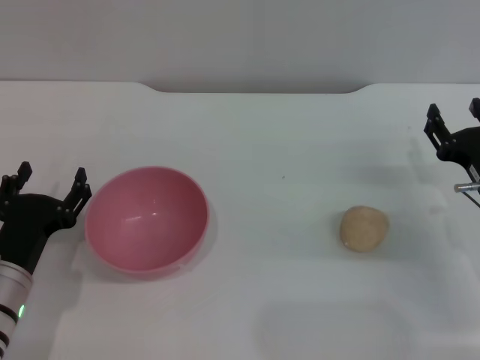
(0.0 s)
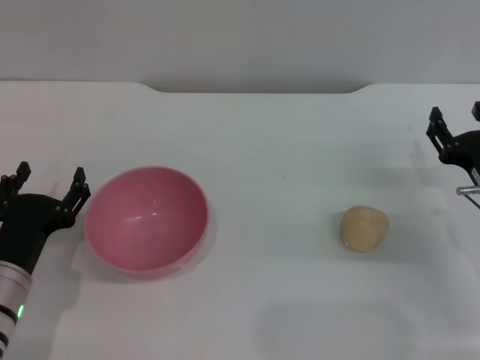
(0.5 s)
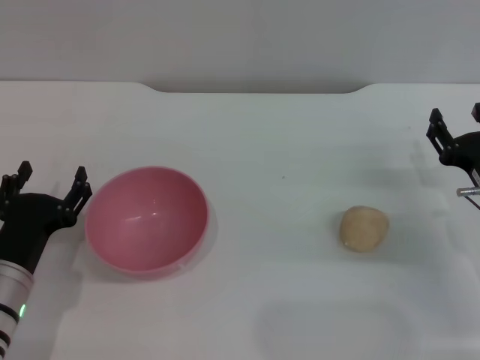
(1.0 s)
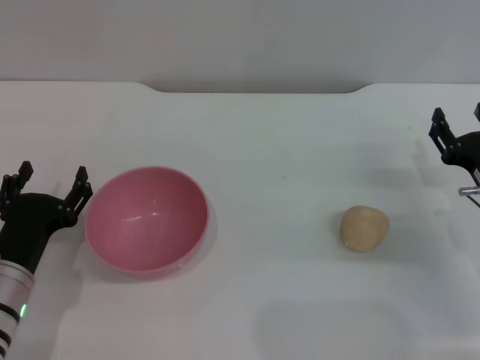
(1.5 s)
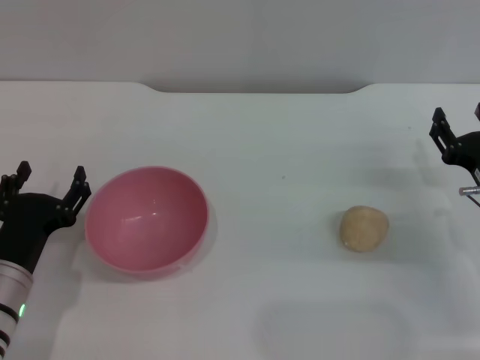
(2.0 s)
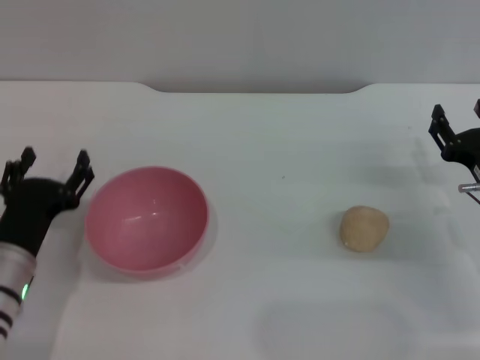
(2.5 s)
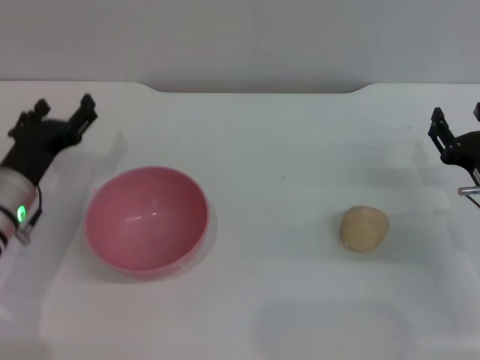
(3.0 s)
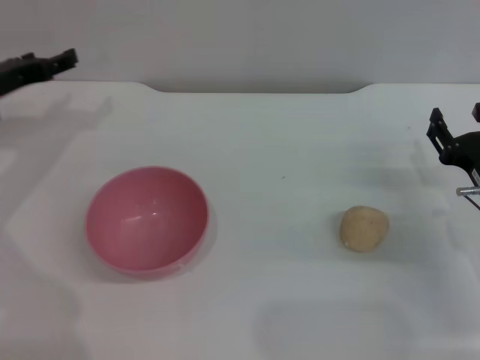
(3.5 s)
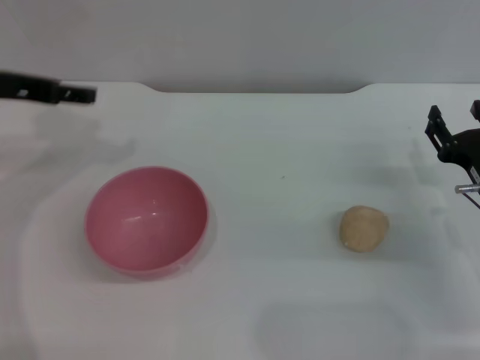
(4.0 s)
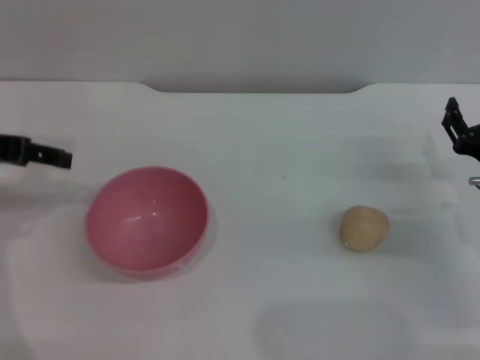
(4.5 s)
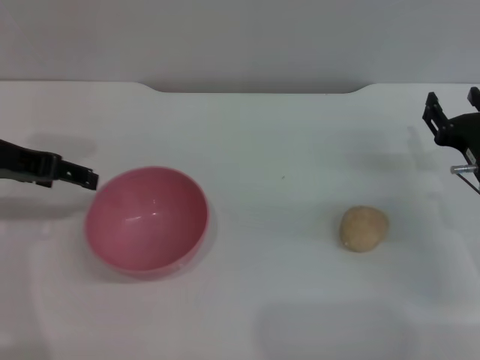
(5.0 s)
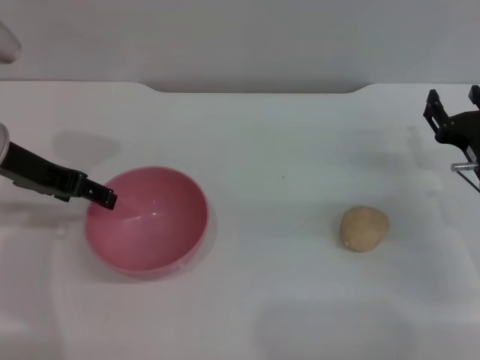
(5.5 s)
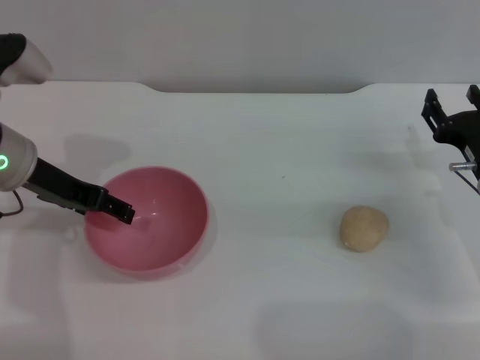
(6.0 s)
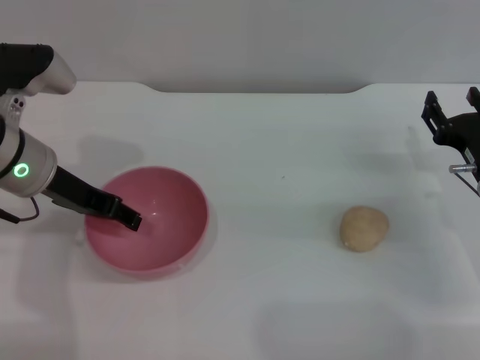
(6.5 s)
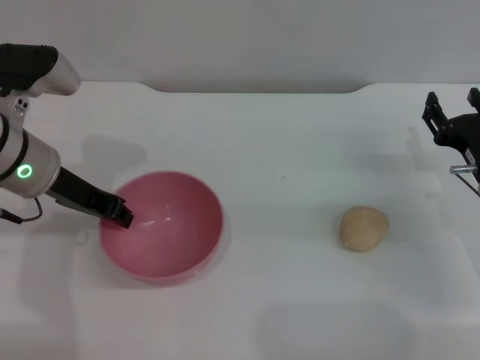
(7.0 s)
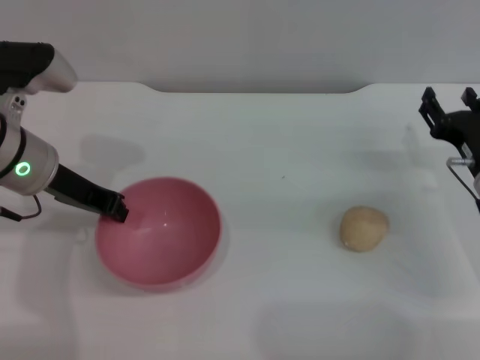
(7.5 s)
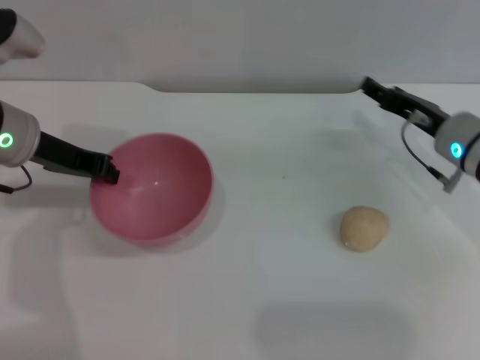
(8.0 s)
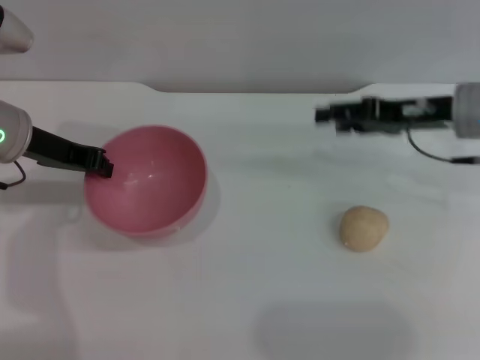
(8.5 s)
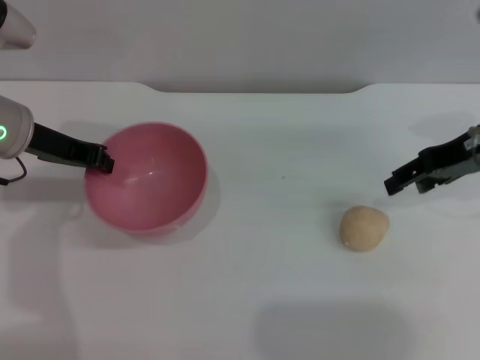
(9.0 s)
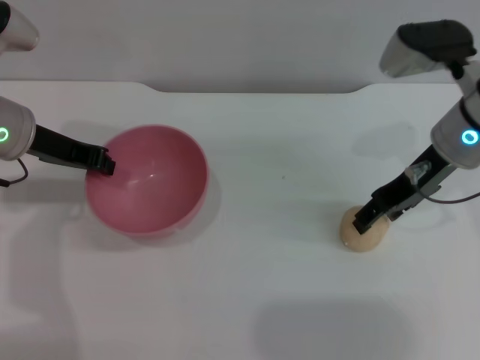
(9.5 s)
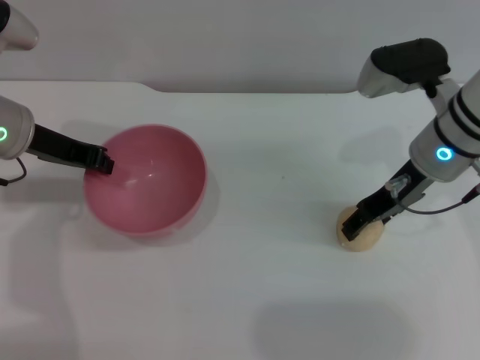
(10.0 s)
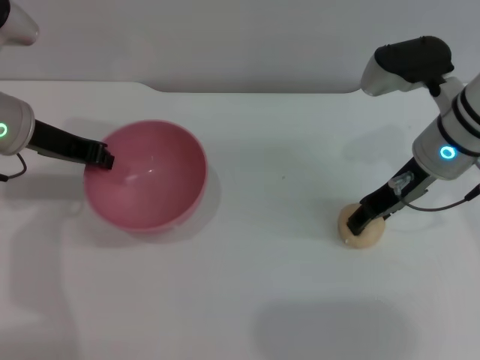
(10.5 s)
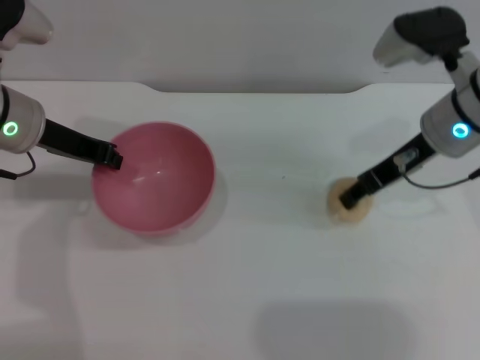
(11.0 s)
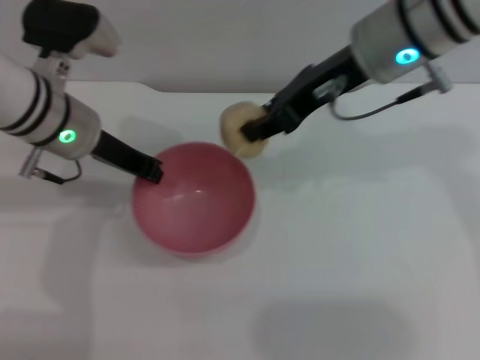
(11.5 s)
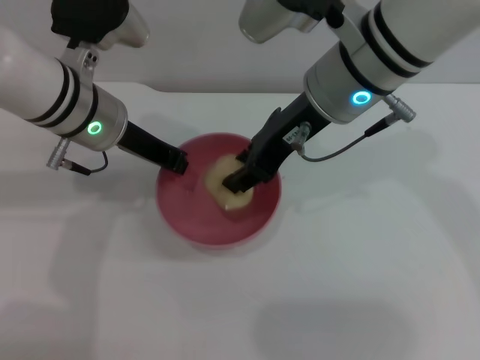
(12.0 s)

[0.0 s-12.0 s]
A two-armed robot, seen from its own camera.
Task of the whole recording: put the egg yolk pastry into the pink bowl and pour it out repeatedly.
Step, 0.0 to 7.5 s: Pick up the bowl with the left gripper.
Step, 8.5 to 11.0 s: Pick up the egg yolk pastry with the right gripper.
0.0 to 2.0 s: Neither gripper changes place.
2.0 to 4.0 s: The left gripper heads upward and forward, covering approximately 25 cm.
4.0 to 6.0 s: The left gripper goes about 5 cm downward.
6.0 to 8.0 s: The right gripper moves forward, some 5 cm. The left gripper closes.
8.0 to 10.0 s: The right gripper shifts approximately 10 cm upward and to the left.
10.0 to 12.0 s: The right gripper travels to the left and upward by roughly 15 cm, and closes. Meanwhile the left gripper travels to the right by some 10 cm.

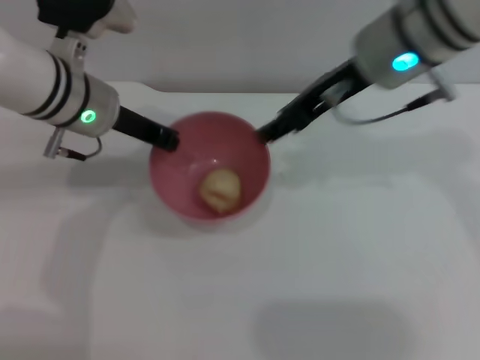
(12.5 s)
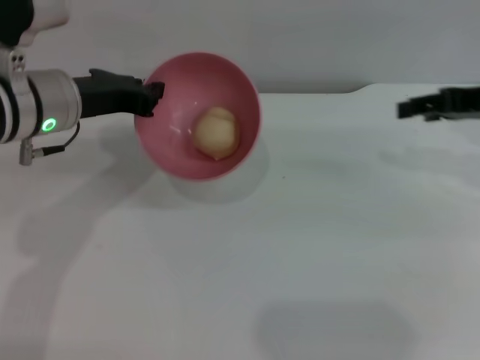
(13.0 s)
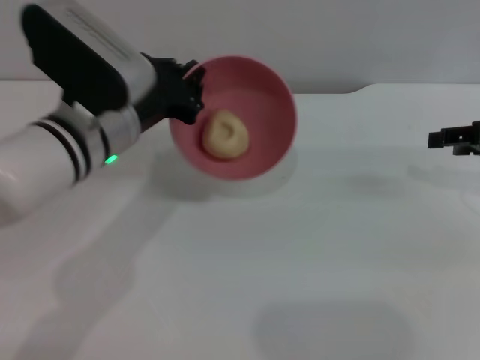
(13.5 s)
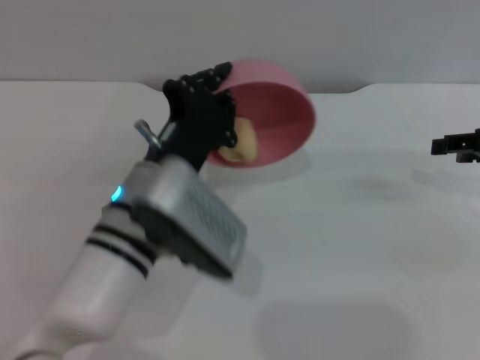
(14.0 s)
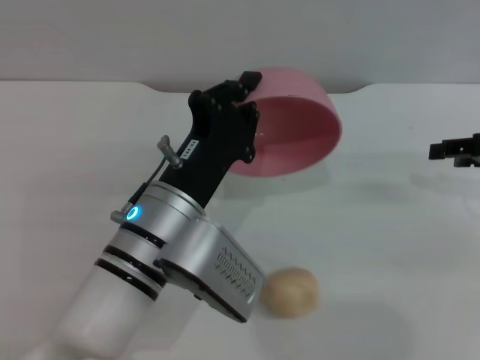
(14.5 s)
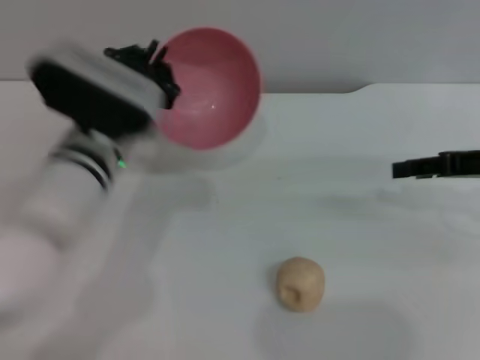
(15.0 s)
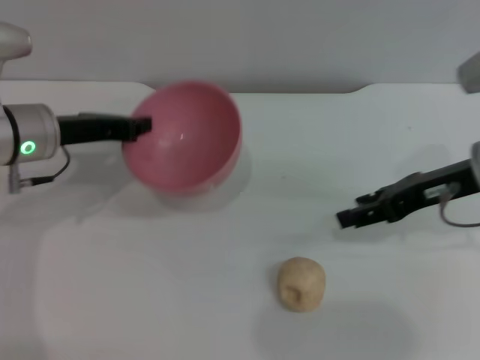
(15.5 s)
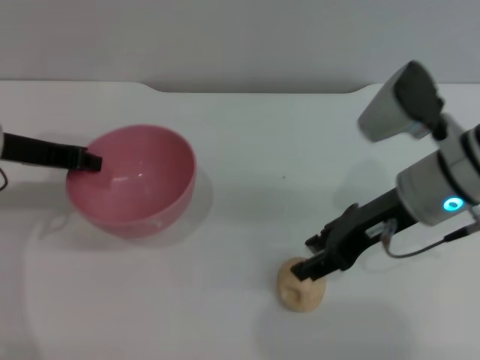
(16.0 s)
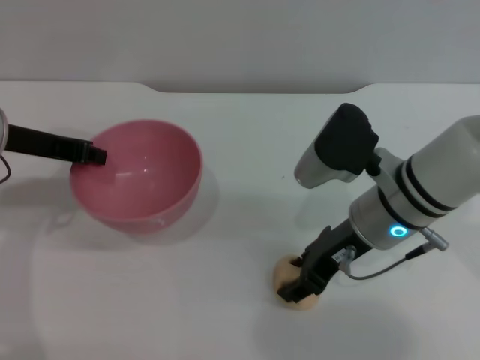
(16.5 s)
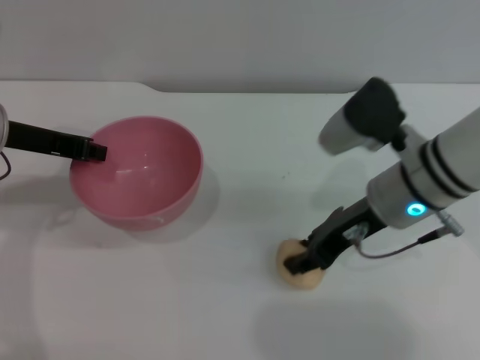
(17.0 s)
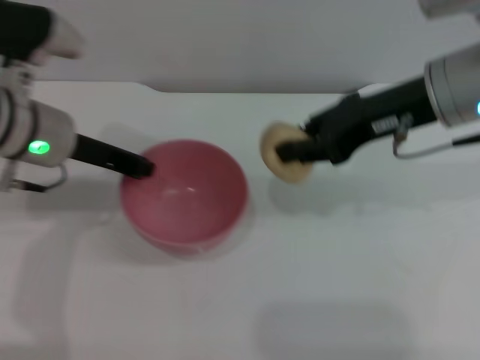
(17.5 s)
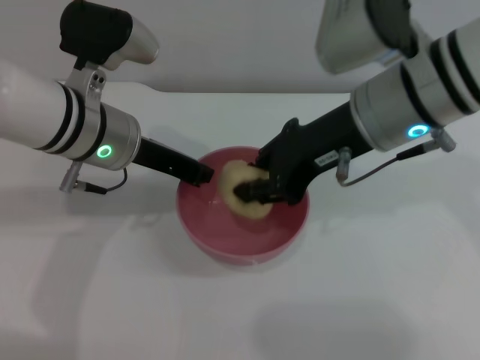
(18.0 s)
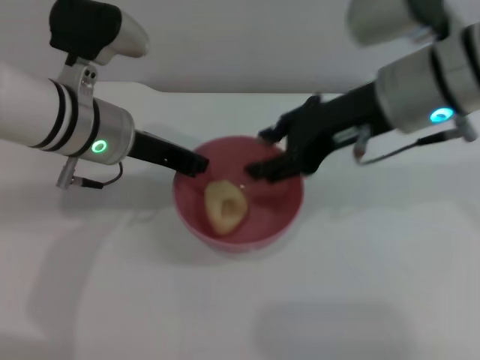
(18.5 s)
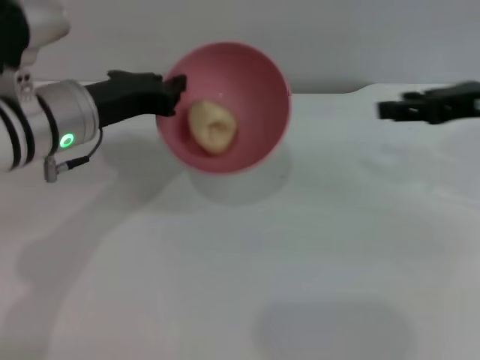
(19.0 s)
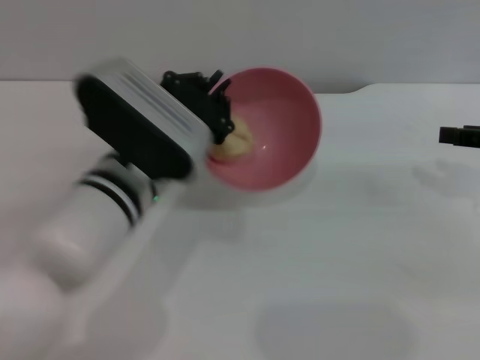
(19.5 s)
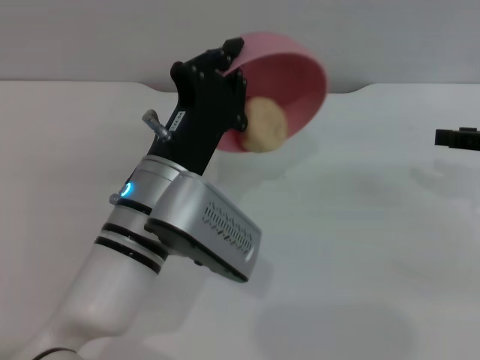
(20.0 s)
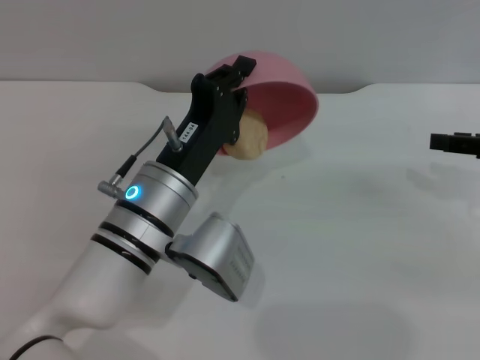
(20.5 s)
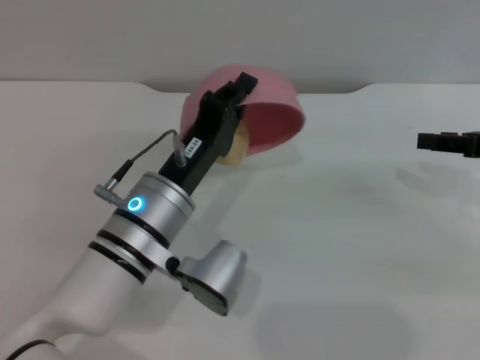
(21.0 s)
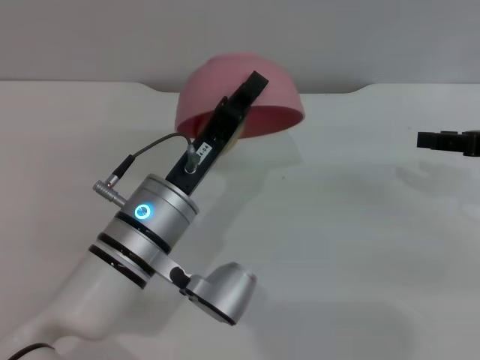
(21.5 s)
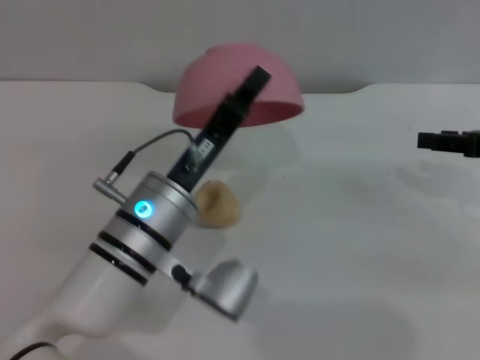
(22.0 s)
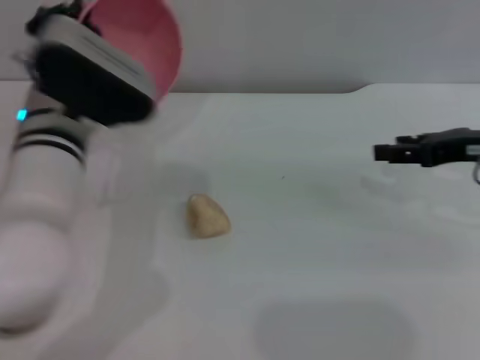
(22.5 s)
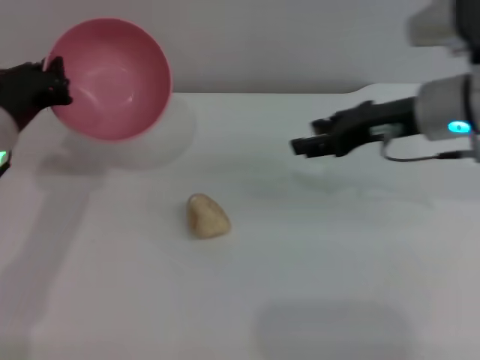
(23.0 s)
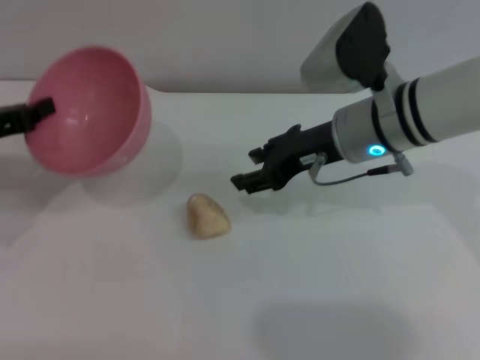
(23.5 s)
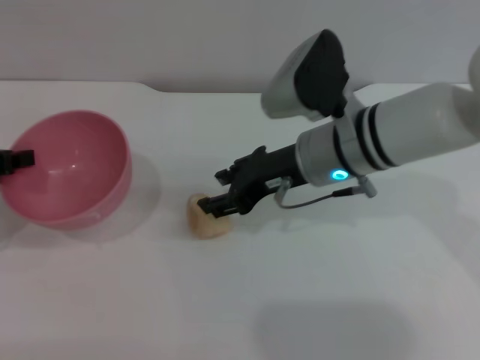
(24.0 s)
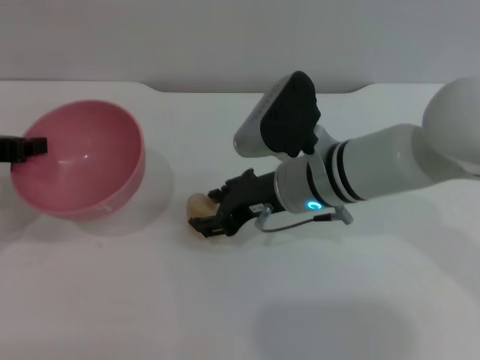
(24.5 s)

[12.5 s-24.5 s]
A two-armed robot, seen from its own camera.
Task of the whole recording: put the egg yolk pastry into the pink bowl and pour it out repeatedly.
Step, 13.0 to 14.5 s: Pour the egg yolk pastry out of bowl.
Step, 15.0 to 17.0 s: Pick up the egg yolk pastry with the right gripper.
Step, 17.5 to 18.5 s: Place the egg yolk pastry into the bowl.
Step, 19.0 to 21.5 s: Pour the egg yolk pastry out of bowl.
12.5 to 14.5 s: The right gripper travels to the right and downward by approximately 20 cm; the left gripper shifts some 20 cm backward, to the right and downward.
14.5 to 16.5 s: The right gripper is displaced to the left by approximately 20 cm. Meanwhile the left gripper goes some 20 cm to the left, forward and upward.
16.5 to 18.5 s: The right gripper heads upward, covering some 10 cm, and closes and opens again; the left gripper travels to the right by approximately 10 cm.
18.5 to 20.5 s: The right gripper goes approximately 20 cm to the right and downward. The left gripper goes some 15 cm backward, downward and to the right.
20.5 to 22.5 s: The left gripper travels to the left, forward and upward by about 10 cm. Meanwhile the right gripper shifts roughly 5 cm to the left.
22.5 to 24.5 s: Both grippers move to the left, approximately 20 cm.

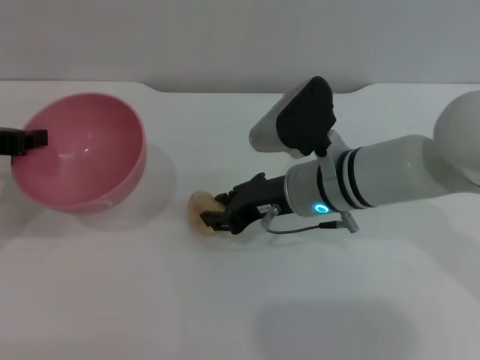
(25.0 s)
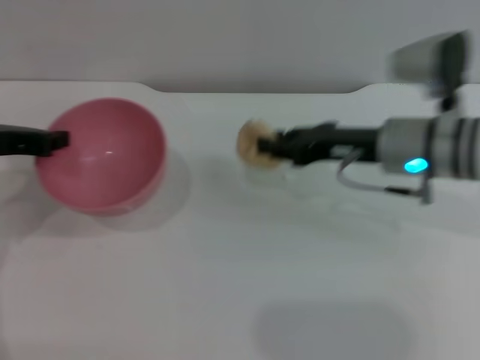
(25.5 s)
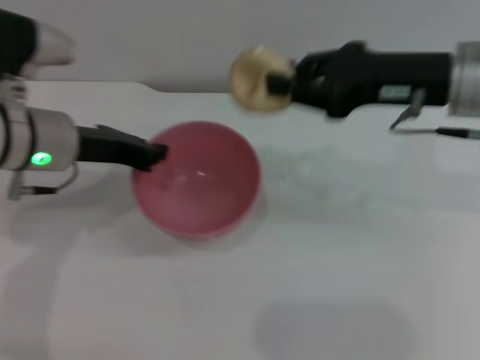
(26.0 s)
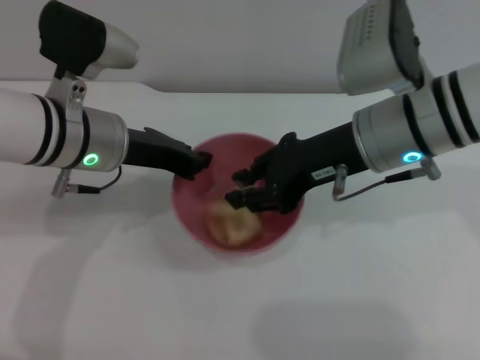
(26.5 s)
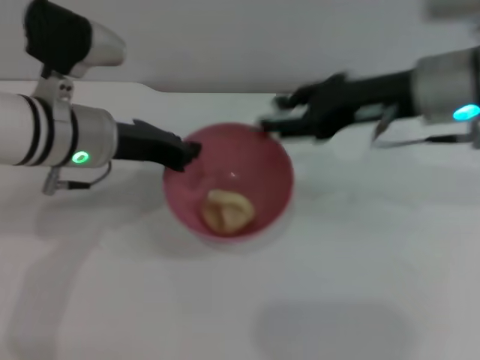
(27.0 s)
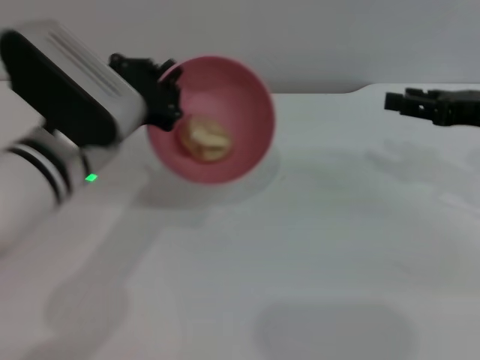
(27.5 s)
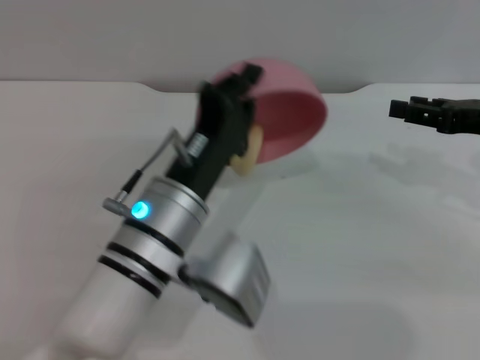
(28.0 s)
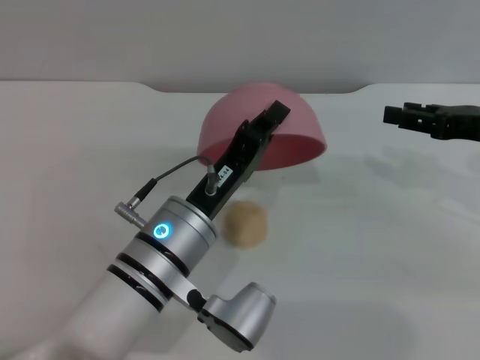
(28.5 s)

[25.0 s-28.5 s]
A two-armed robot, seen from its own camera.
Task of the whole recording: put the egg yolk pastry into the pink bowl and pour it out repeatedly.
Step, 26.0 to 27.0 s: Place the egg yolk pastry into the bowl.
25.0 to 27.0 s: The left gripper is displaced to the right by about 15 cm. The right gripper travels upward and to the right by some 15 cm, and closes and opens again.
27.0 to 28.5 s: The left gripper travels backward, to the right and downward by some 15 cm; the right gripper goes roughly 15 cm to the right and downward.
